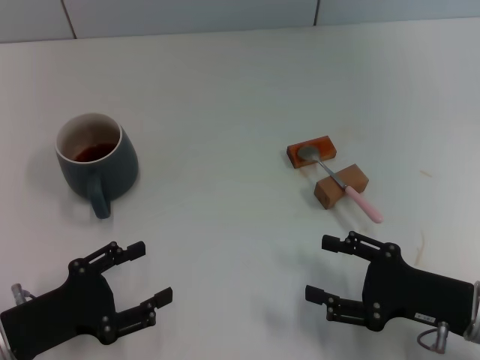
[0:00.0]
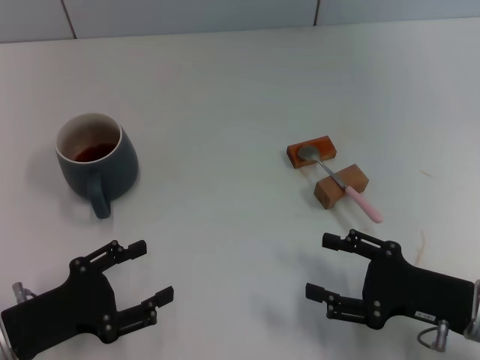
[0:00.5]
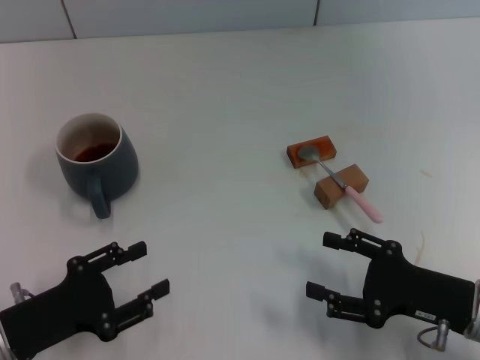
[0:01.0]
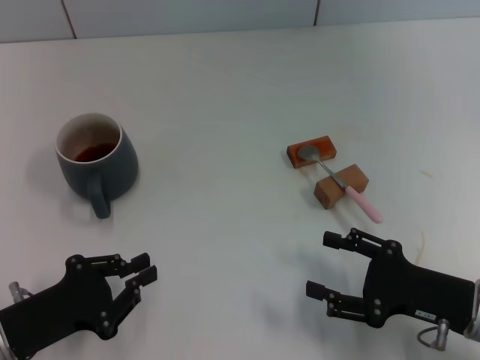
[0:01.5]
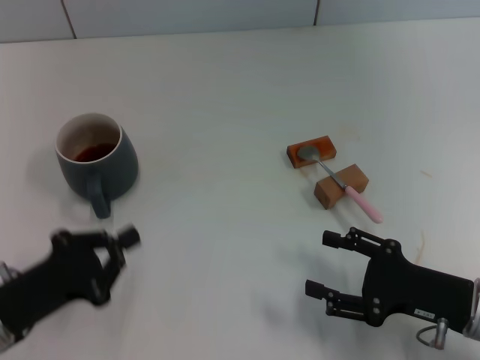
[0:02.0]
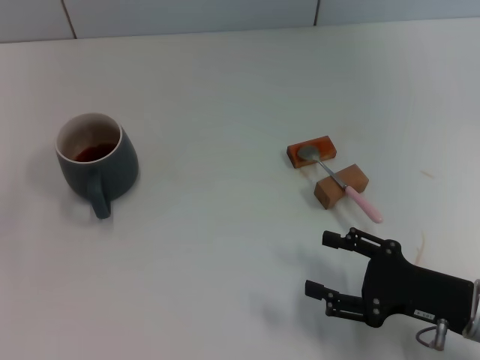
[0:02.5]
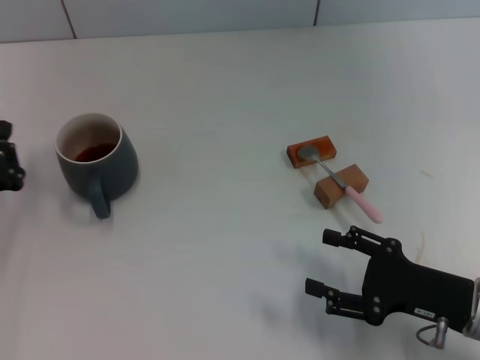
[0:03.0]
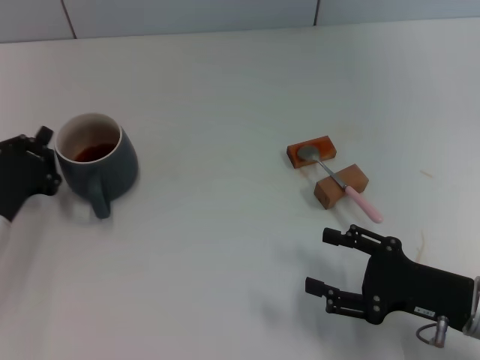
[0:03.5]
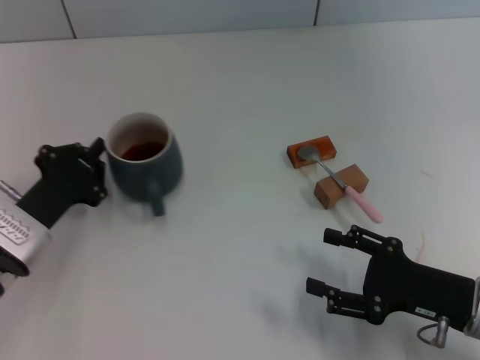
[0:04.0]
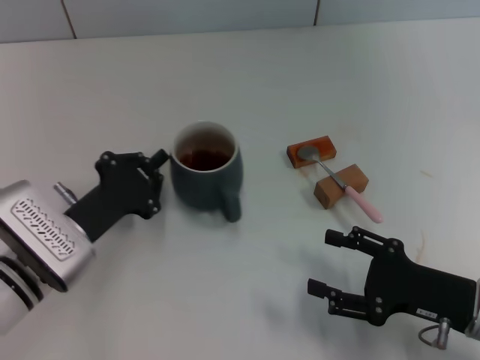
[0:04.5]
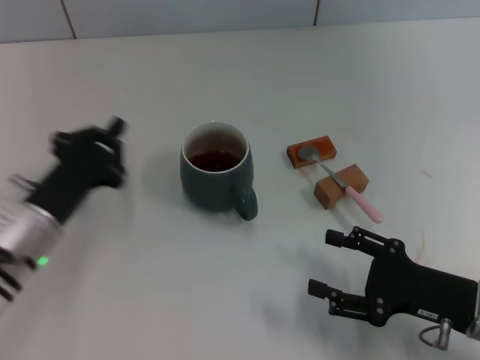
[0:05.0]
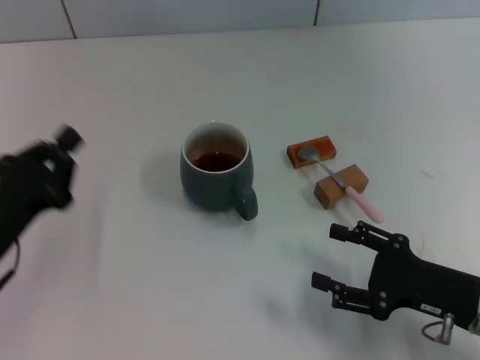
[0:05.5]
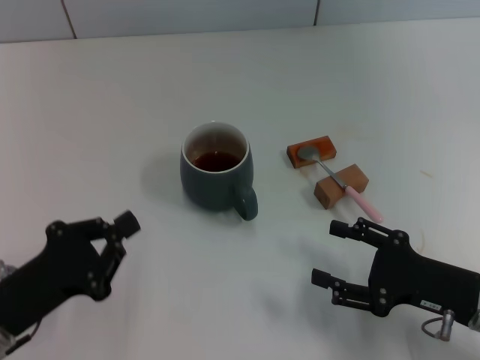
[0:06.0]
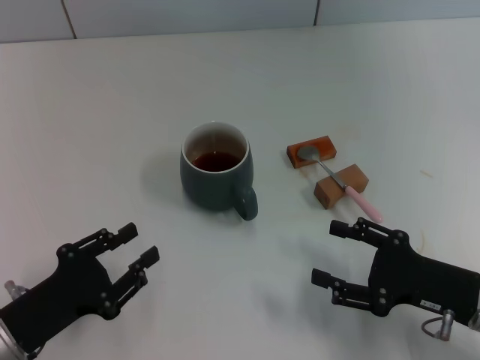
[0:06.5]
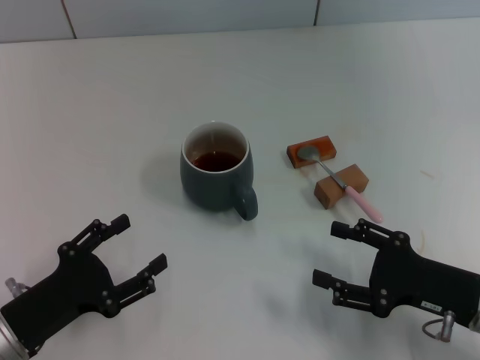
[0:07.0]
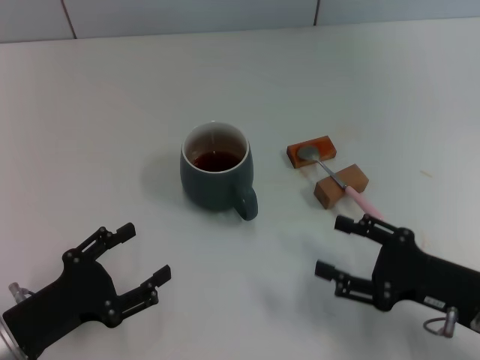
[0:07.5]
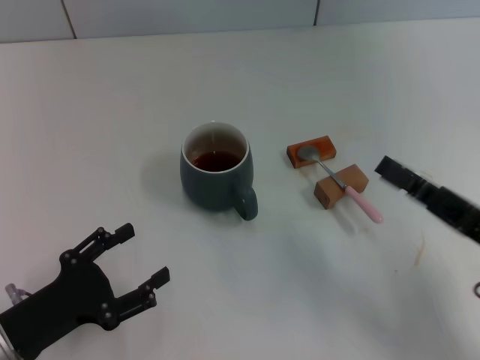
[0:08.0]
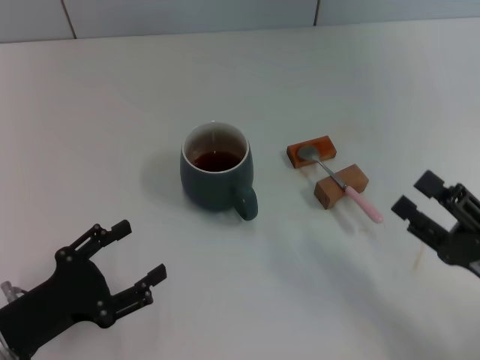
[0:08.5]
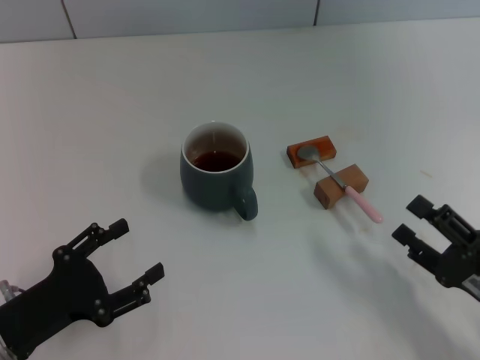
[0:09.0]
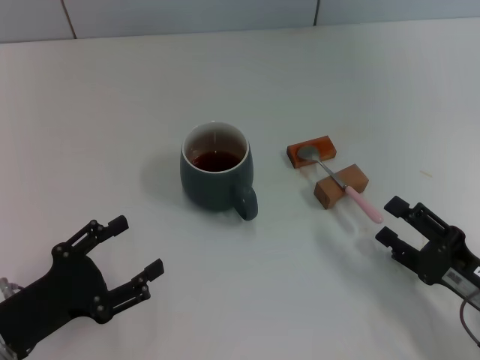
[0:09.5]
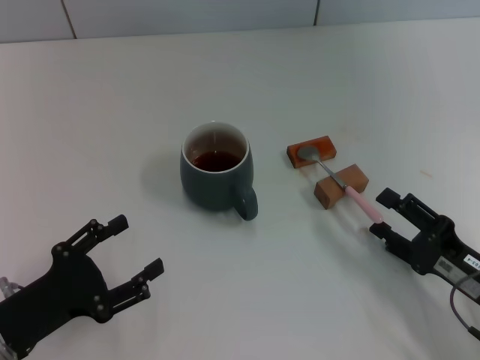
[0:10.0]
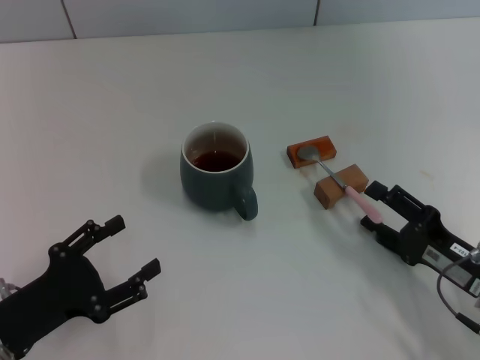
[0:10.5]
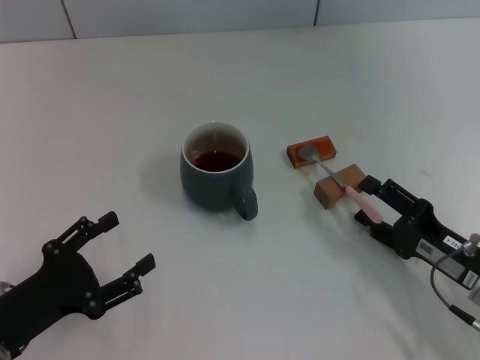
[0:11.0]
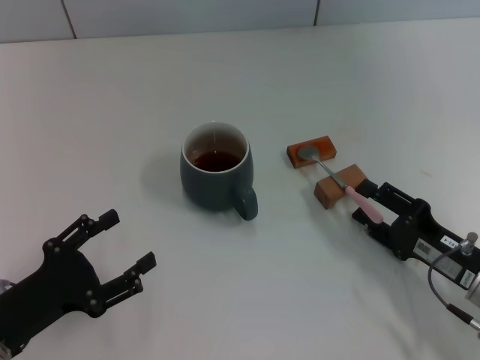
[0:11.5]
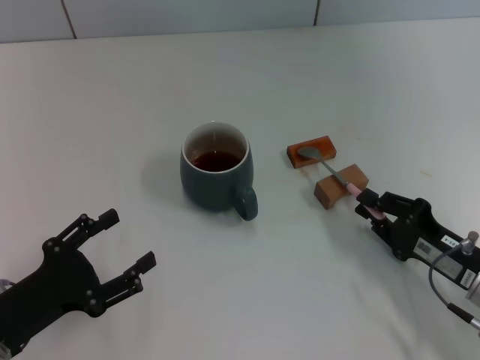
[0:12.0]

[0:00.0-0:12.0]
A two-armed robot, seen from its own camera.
Task of the whole recording: Move the grey cup to the center, lift the pink spoon, stir it three times in the cup, and put the spoon into the cup.
Step, 0:00.0 to 0:04.5: Move the cup with coffee to the center of view with the left gripper.
0:00.0 to 0:02.0: The left gripper closes.
0:02.0 to 0:04.0: The left gripper heads forward, covering roughly 10 cm.
0:04.0 to 0:06.0: The left gripper heads backward, covering some 10 cm.
0:06.0 to 0:08.0: The left gripper opens its fingers.
0:08.0 to 0:10.0: The right gripper goes roughly 5 cm downward.
0:10.0 to 0:12.0: The right gripper closes its fingers.

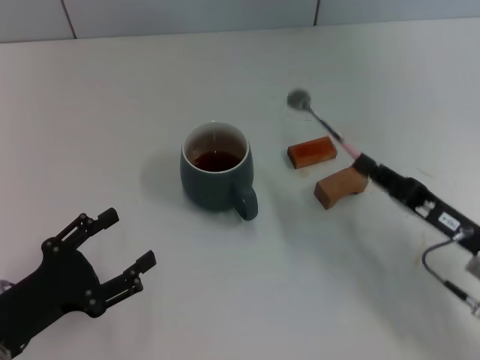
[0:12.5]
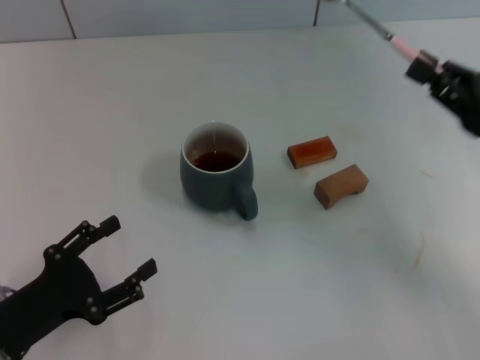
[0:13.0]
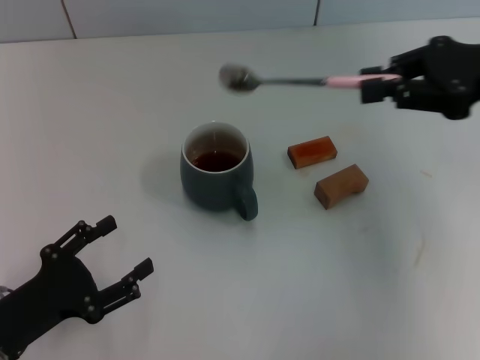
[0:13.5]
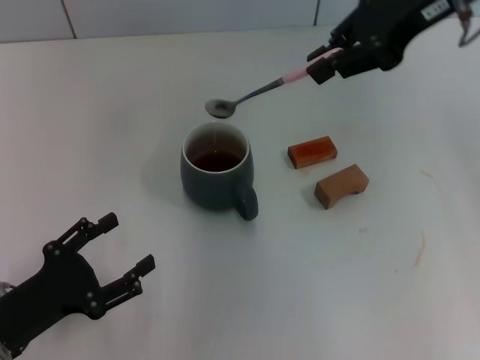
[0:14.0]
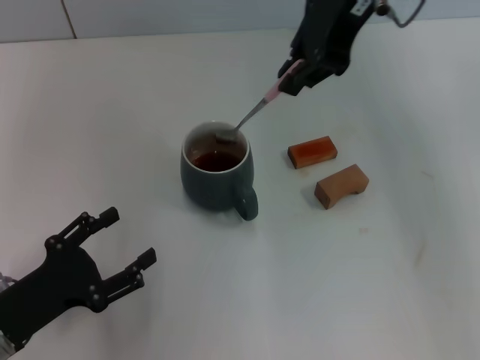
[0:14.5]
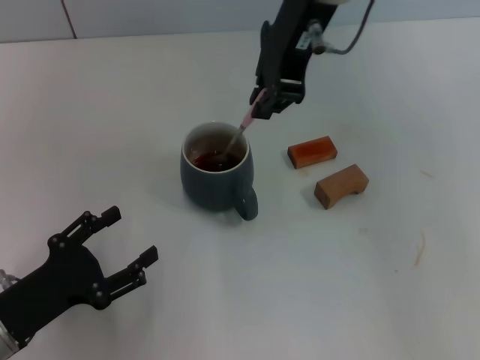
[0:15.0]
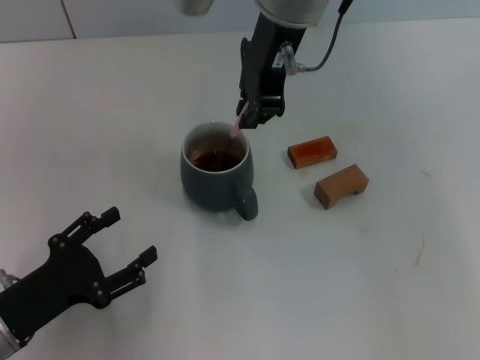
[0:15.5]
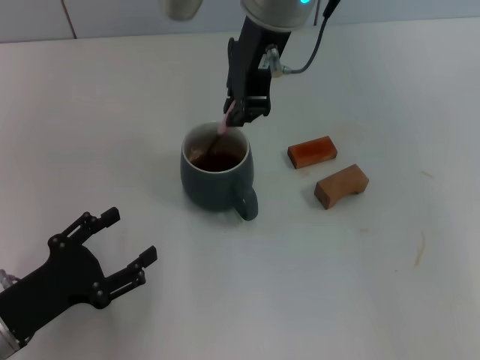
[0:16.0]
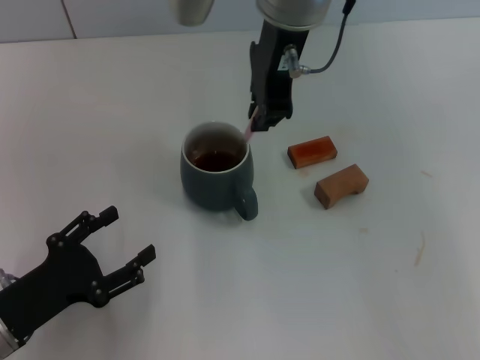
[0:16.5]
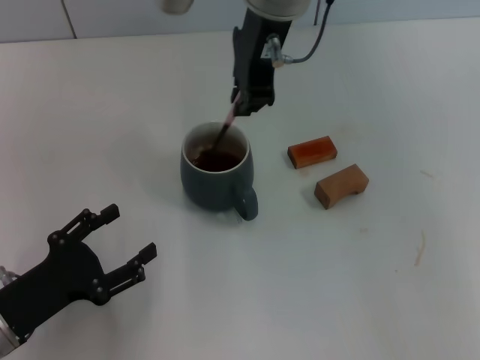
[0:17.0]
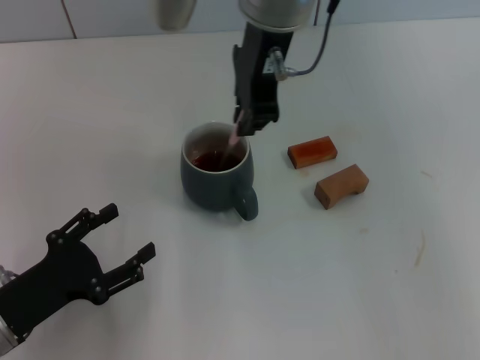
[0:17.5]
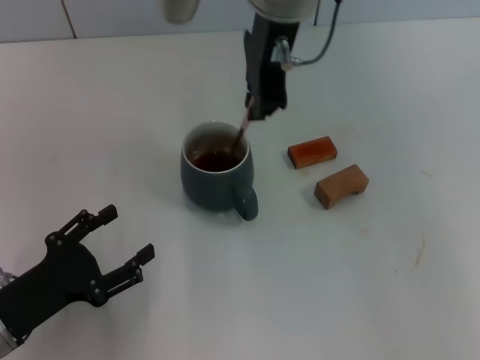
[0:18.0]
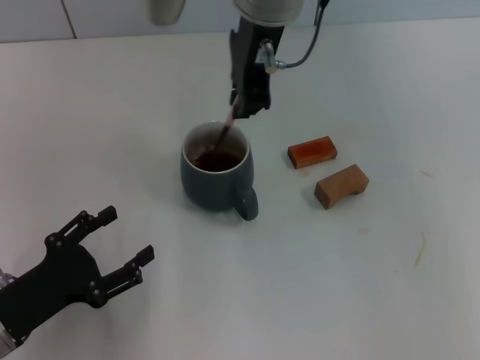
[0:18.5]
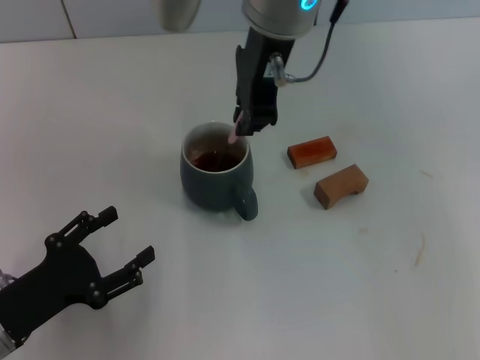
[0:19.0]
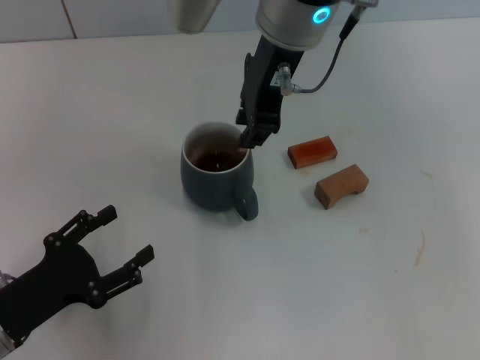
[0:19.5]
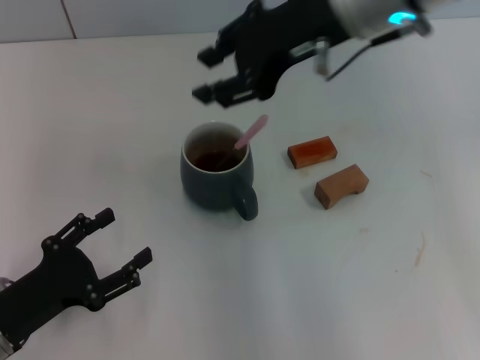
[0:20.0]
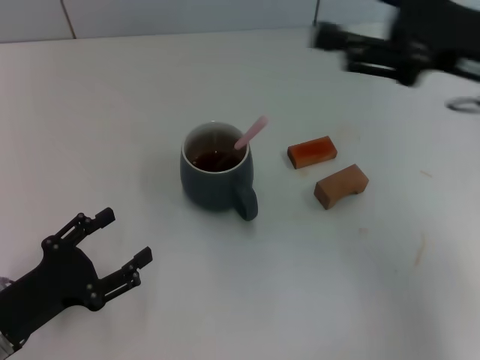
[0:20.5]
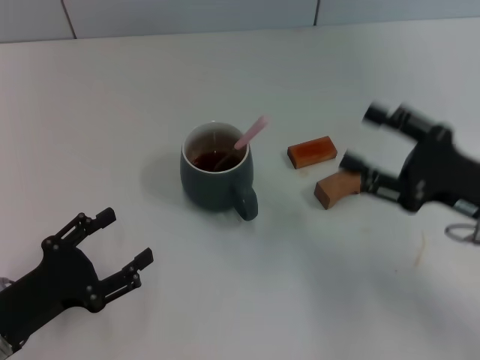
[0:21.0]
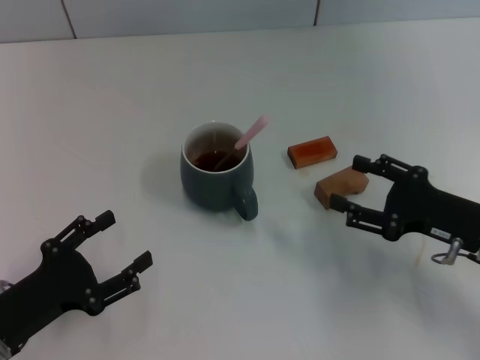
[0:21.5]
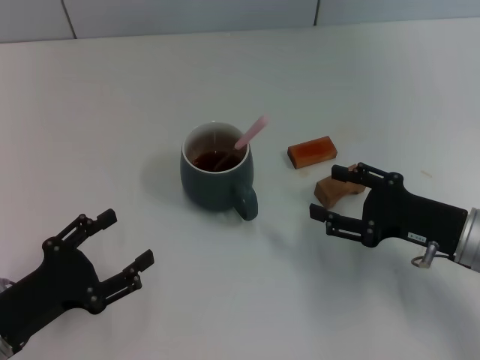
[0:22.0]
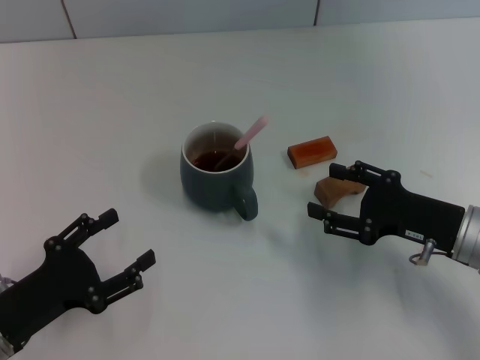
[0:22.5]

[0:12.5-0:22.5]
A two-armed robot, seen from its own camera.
Task of the whole recording: Move the grey cup to the center, lift the pink spoon, stir it three times in the cup, and put the spoon into the cup.
Step, 0:12.5 to 0:19.5: Stir the coffee in the cup with the right gripper.
0:12.5 to 0:14.5: The right gripper is displaced upward, forward and to the left by roughly 40 cm.
0:14.5 to 0:16.5: The right gripper heads to the left, covering some 10 cm.
0:16.5 to 0:18.5: There are only small adjustments of the grippers.
0:18.5 to 0:20.5: The right gripper heads to the right and backward, covering approximately 25 cm, and opens.
0:20.5 to 0:22.5: The right gripper heads downward, covering approximately 15 cm.

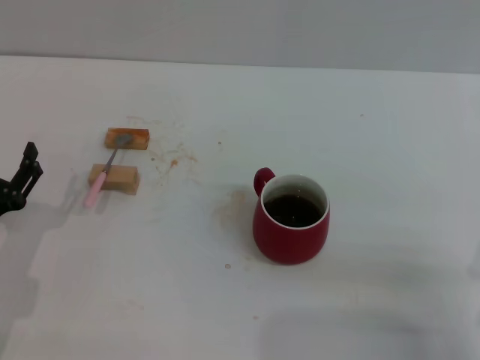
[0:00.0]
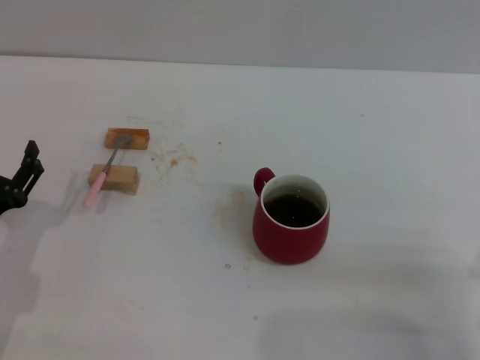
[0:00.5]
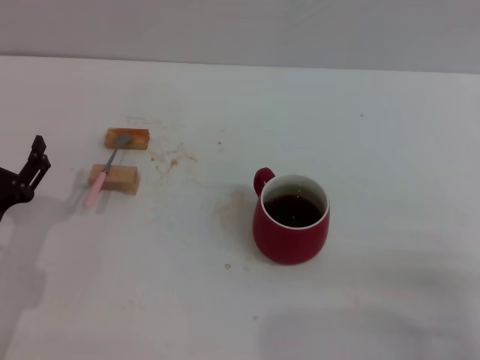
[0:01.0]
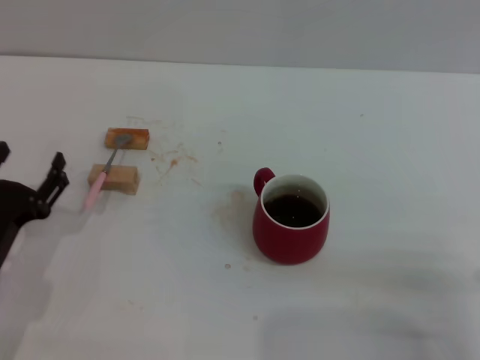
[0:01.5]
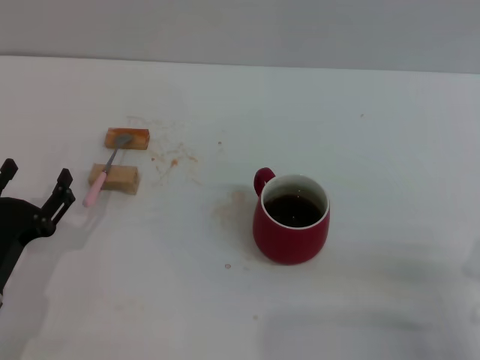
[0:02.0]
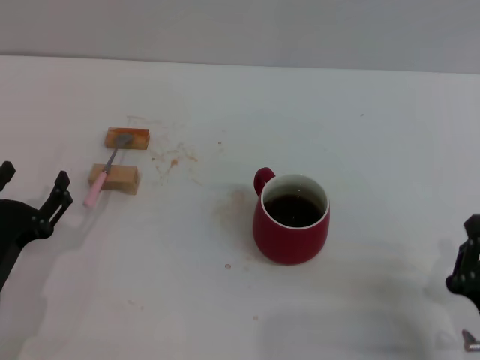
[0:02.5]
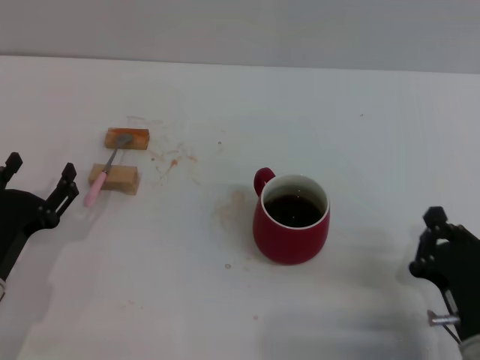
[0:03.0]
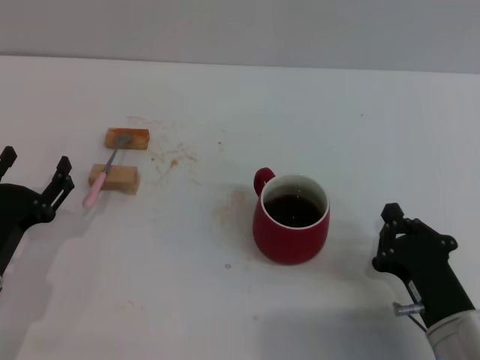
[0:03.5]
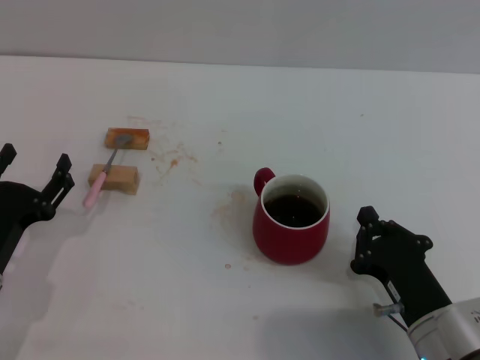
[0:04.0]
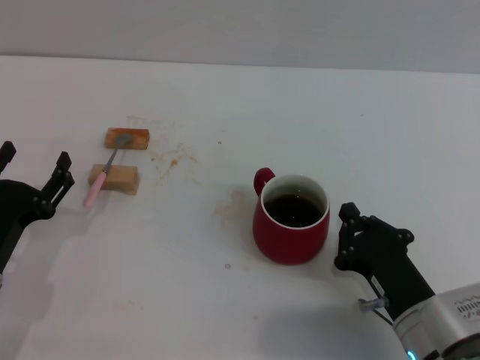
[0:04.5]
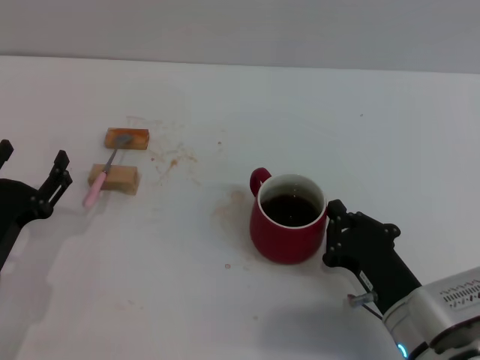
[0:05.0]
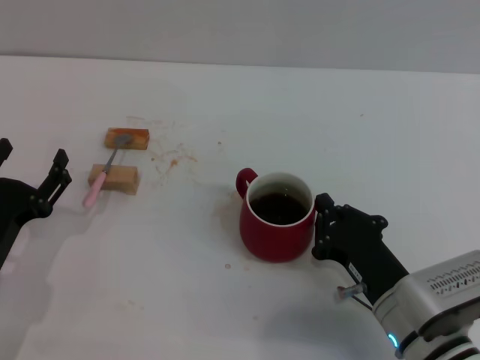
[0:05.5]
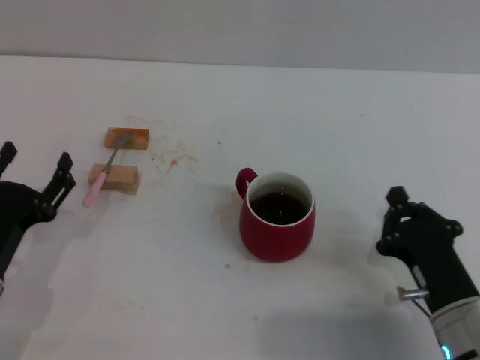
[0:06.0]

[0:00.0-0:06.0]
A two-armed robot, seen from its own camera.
Task of the whole recording: Move the red cup to the center, lift the pink spoon, stir it three times in the cup, and put the spoon into the cup.
Step, 0:01.0 to 0:05.5: Move the cup in the center of the table with right gripper.
0:00.0 to 0:02.0: There are only small adjustments of the grippers.
0:02.0 to 0:04.0: The right gripper shifts roughly 10 cm to the left.
0:04.0 to 0:06.0: There are only small adjustments of the grippers.
